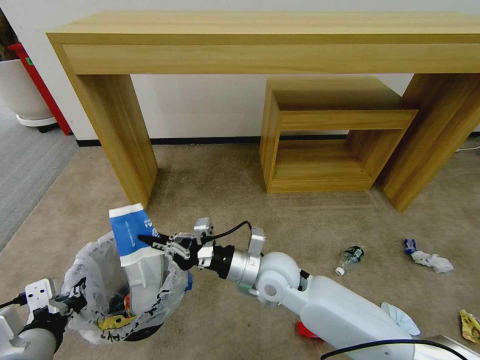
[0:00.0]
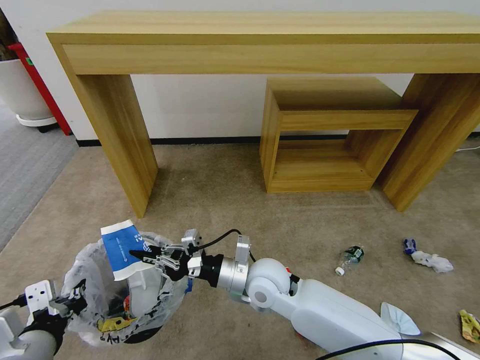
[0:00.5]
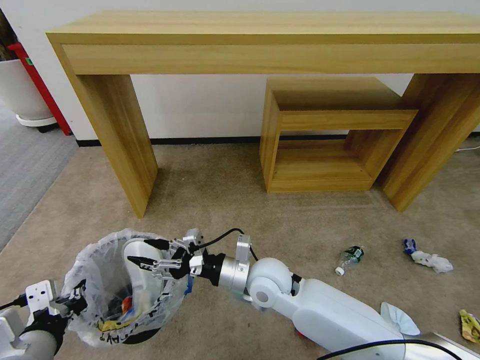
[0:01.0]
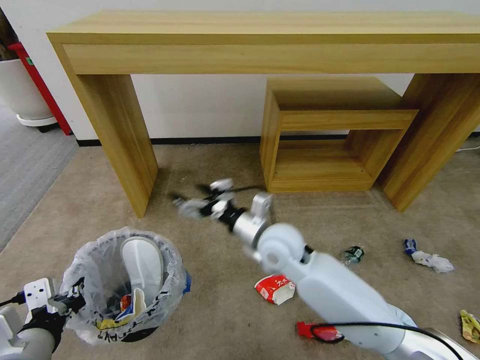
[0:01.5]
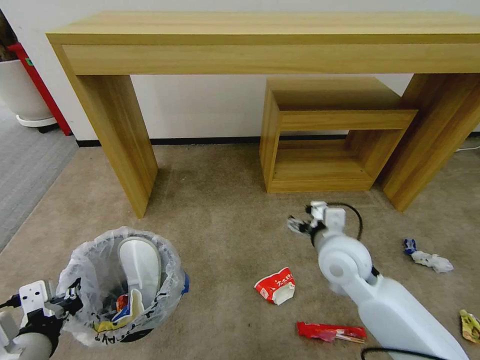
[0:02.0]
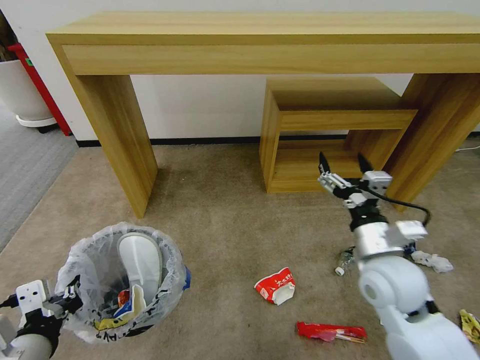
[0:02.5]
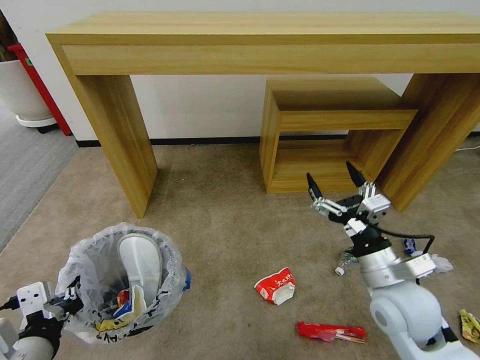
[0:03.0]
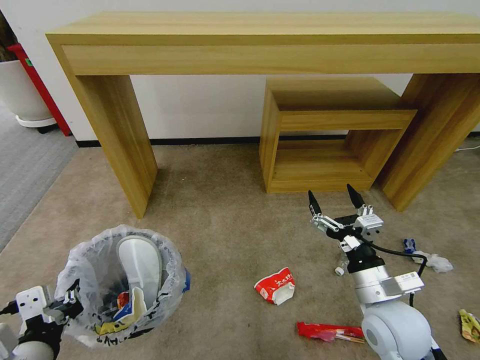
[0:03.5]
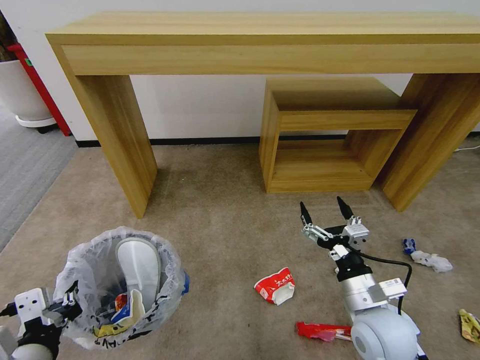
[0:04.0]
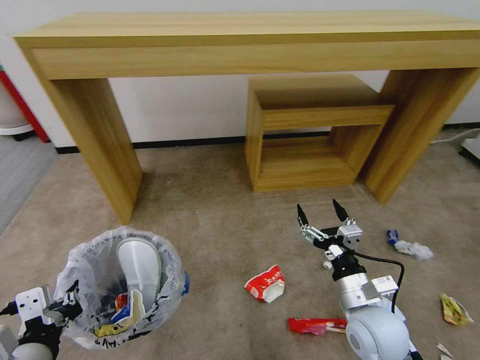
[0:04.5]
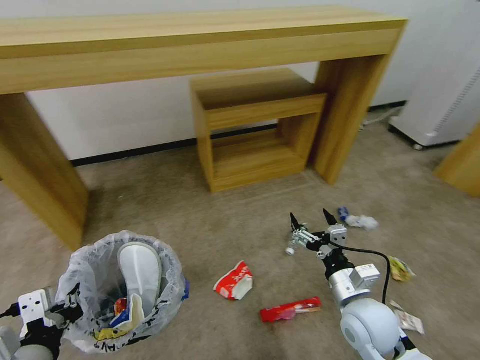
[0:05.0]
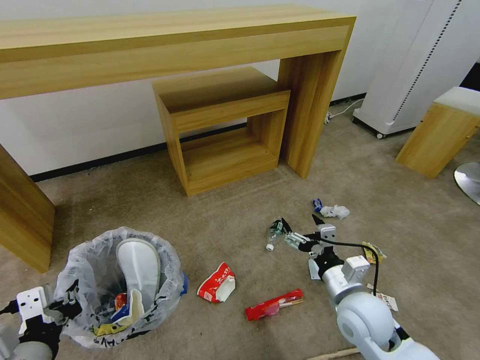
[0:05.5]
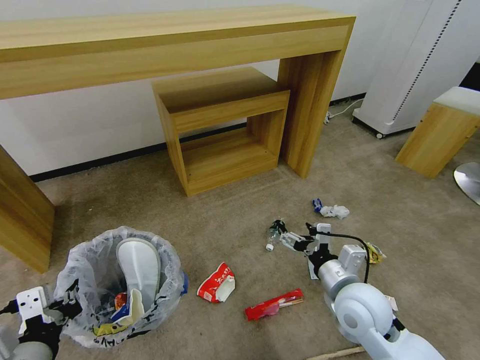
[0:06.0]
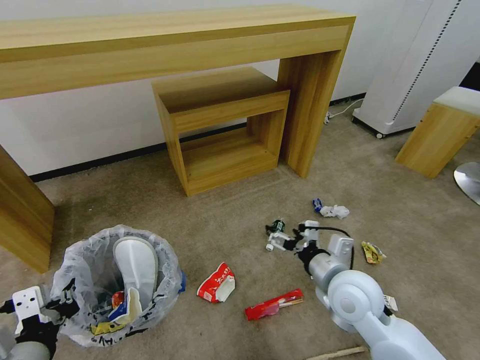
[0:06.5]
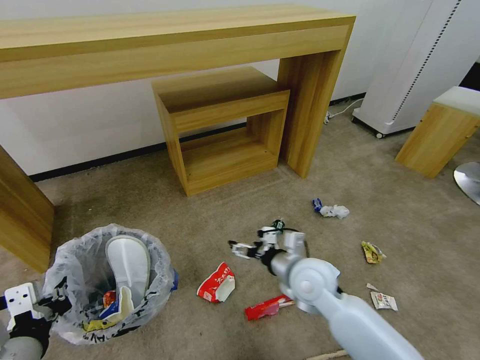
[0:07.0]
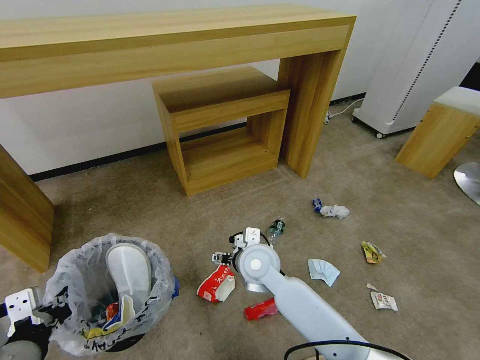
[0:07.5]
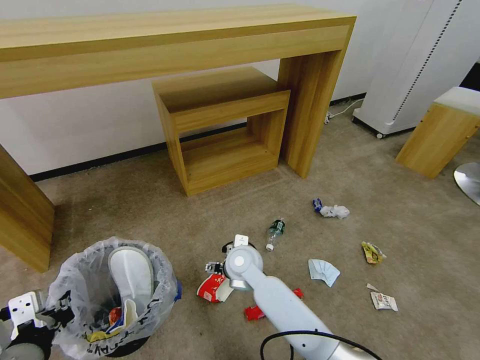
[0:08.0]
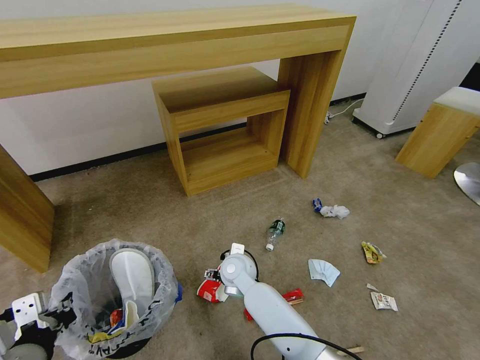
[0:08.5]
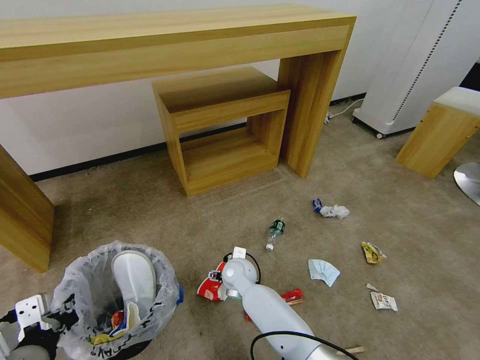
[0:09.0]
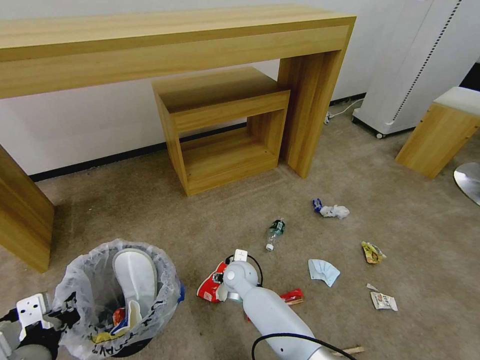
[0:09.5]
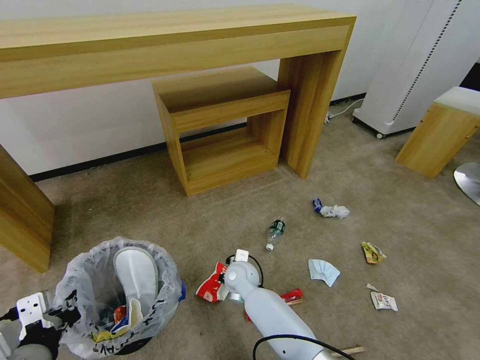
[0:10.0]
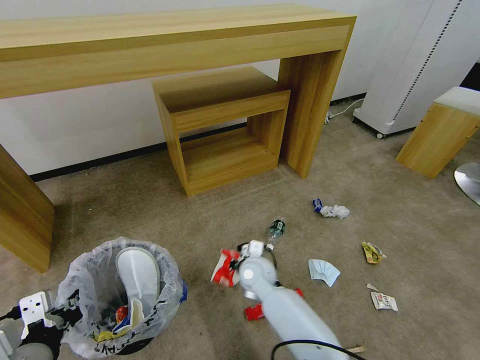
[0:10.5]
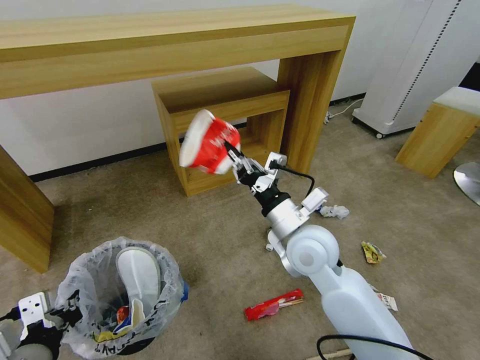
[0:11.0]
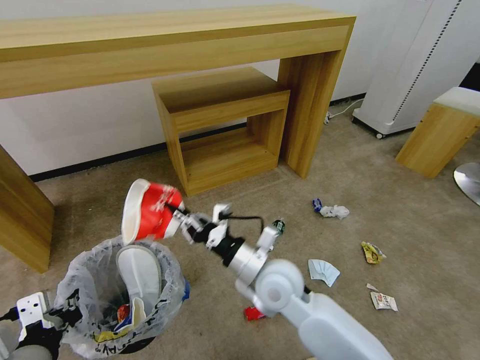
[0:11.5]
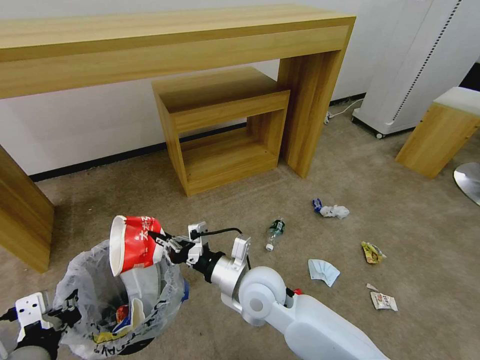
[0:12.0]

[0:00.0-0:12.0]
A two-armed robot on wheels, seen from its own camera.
Task of the whole recording: Pick up the trash bin and place the garbage on the floor into it.
0:00.0 to 0:02.0: The right gripper shifts some 15 cm to the right, and opens its fingers.
0:02.0 to 0:04.0: The right gripper is displaced backward, downward and to the right by some 15 cm.
0:04.0 to 0:06.0: The right gripper shifts by about 5 cm.
0:06.0 to 0:08.0: The right gripper goes roughly 25 cm to the left and forward.
0:08.0 to 0:10.0: The right gripper is displaced downward by some 10 cm, and closes its fingers.
0:10.0 to 0:12.0: The right gripper is displaced upward and backward by about 20 cm.

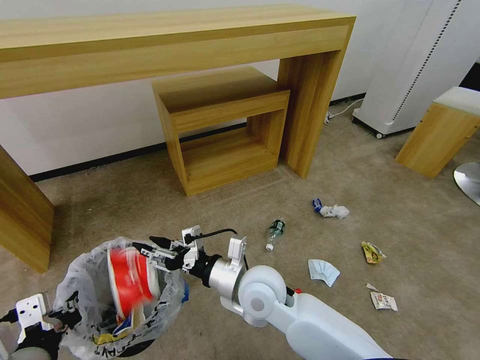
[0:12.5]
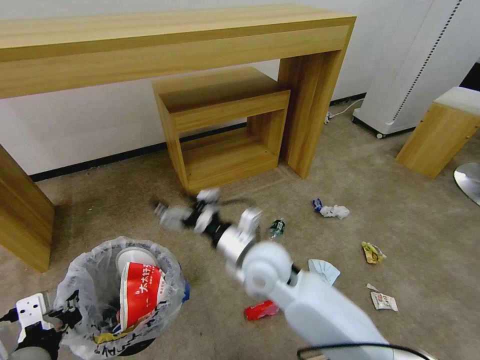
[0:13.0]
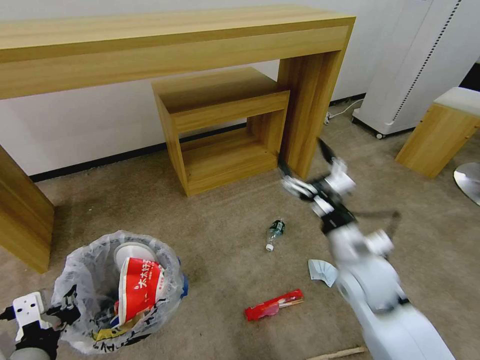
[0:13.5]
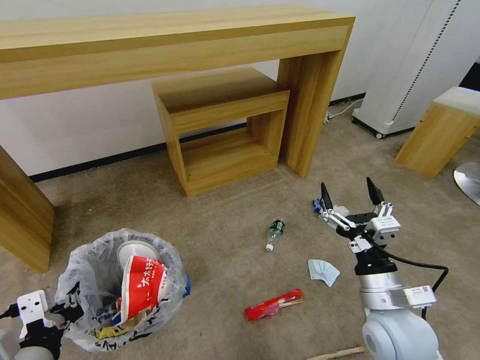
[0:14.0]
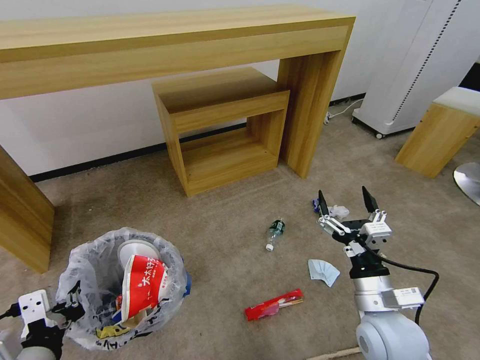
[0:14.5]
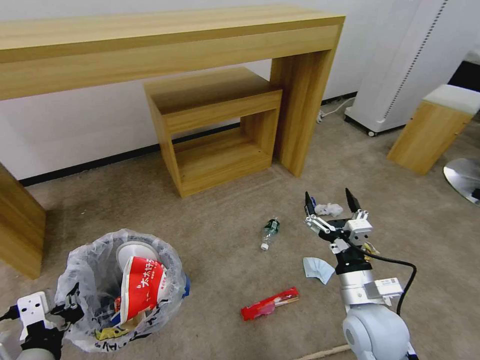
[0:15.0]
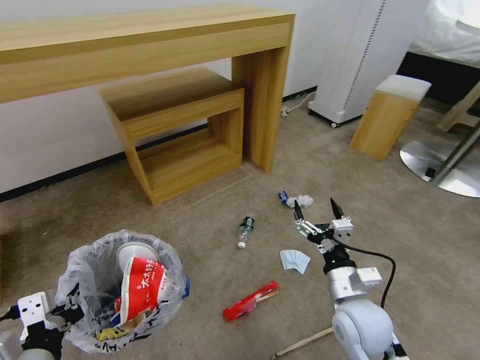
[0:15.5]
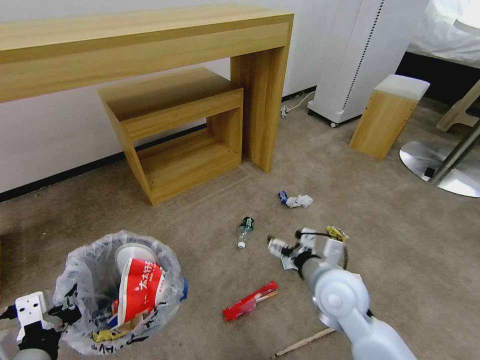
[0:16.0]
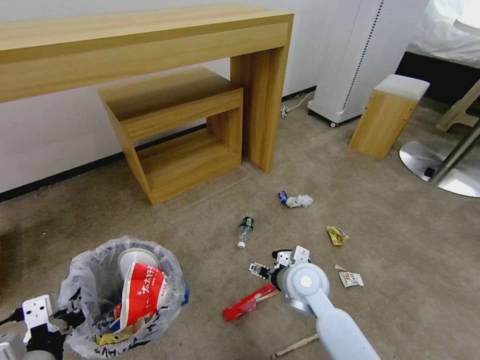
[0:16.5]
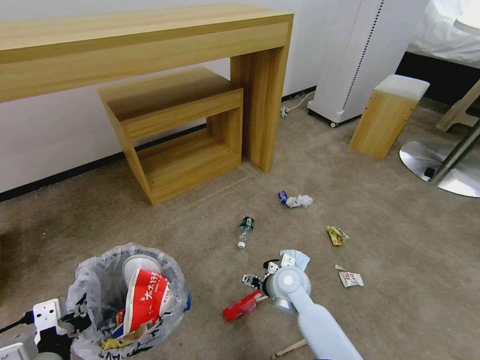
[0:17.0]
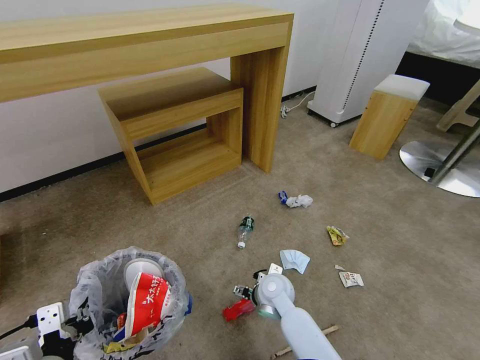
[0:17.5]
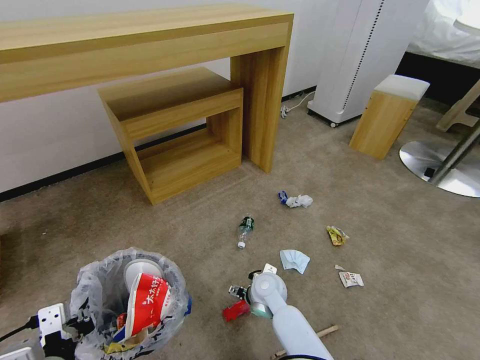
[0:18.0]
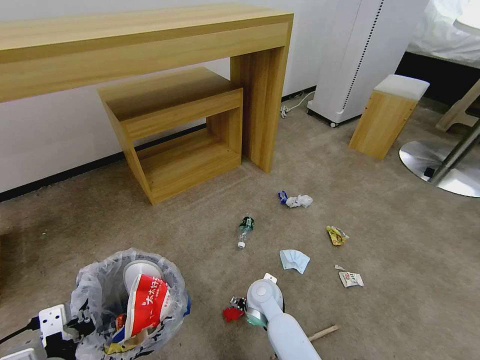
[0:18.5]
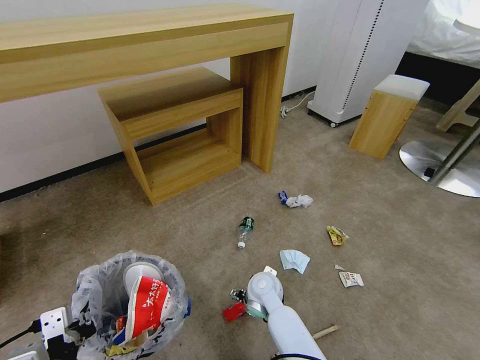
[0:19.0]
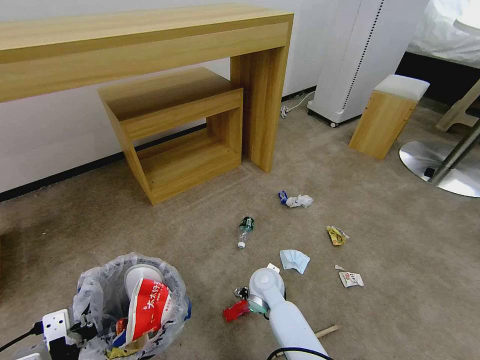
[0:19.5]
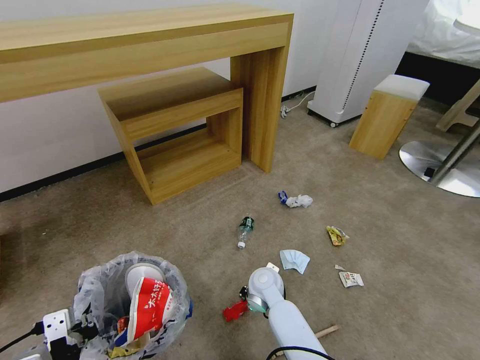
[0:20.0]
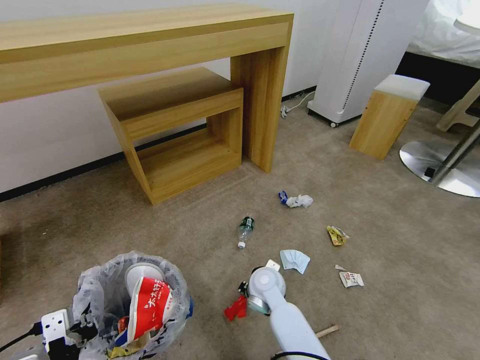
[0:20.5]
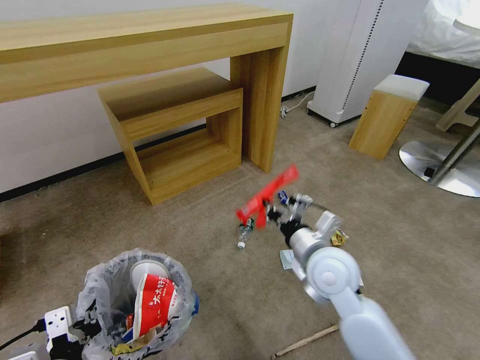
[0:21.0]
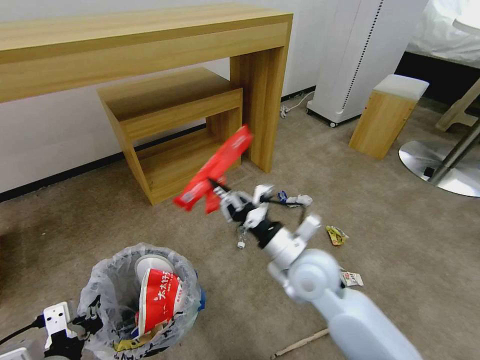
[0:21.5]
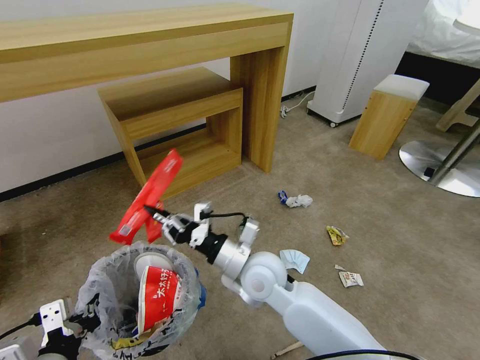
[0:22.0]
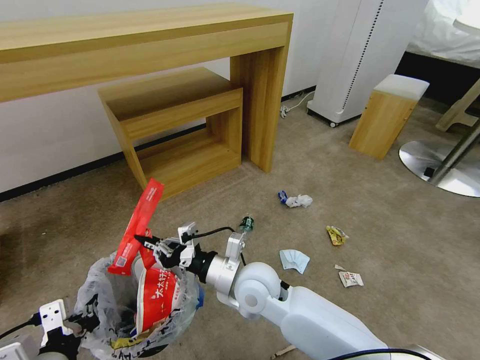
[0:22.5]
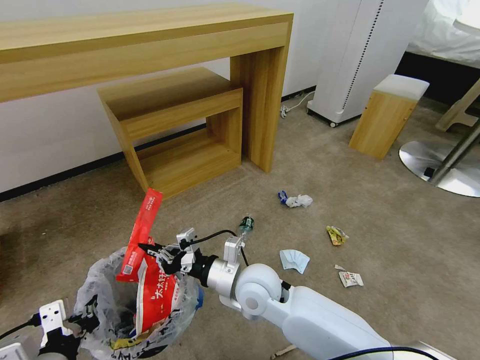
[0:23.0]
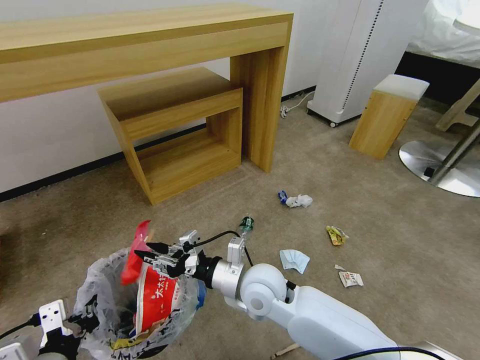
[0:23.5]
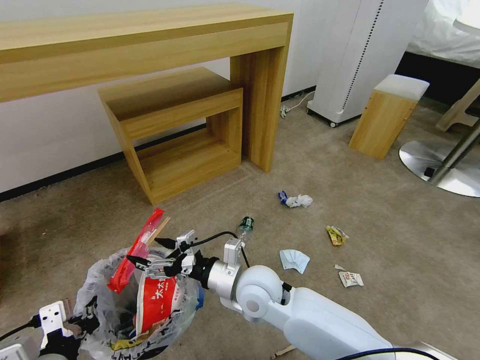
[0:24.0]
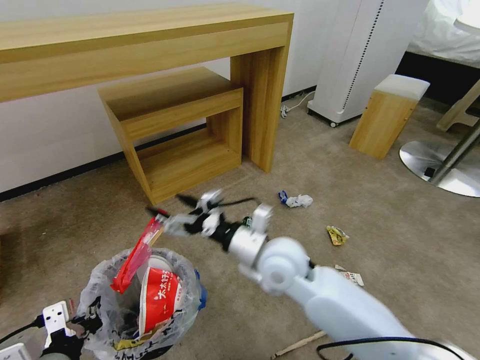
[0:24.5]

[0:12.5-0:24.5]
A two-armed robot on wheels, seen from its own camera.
Task of the whole recording: Pick up the trash bin and place the garbage on the floor into it.
0:12.5 to 0:14.5: The right gripper heads to the right, covering about 20 cm, and opens up.
0:14.5 to 0:16.5: The right gripper travels forward, to the left and downward by approximately 15 cm.
0:16.5 to 0:18.5: The right gripper travels downward and to the left by about 15 cm.
0:18.5 to 0:20.5: The right gripper closes.
0:20.5 to 0:22.5: The right gripper moves upward, approximately 10 cm.
0:22.5 to 0:24.5: The right gripper is displaced upward by approximately 5 cm, and opens up.

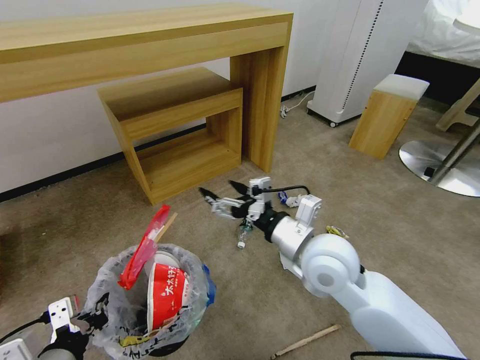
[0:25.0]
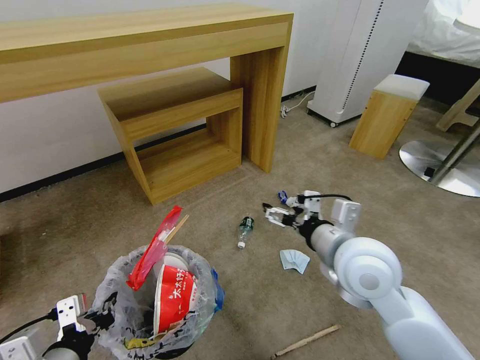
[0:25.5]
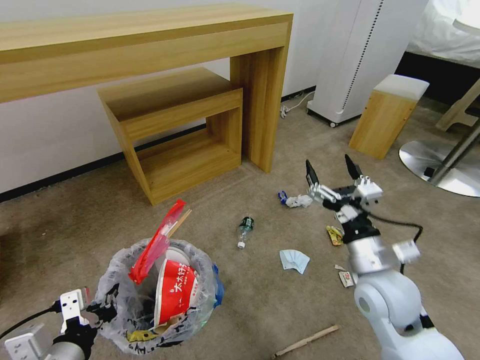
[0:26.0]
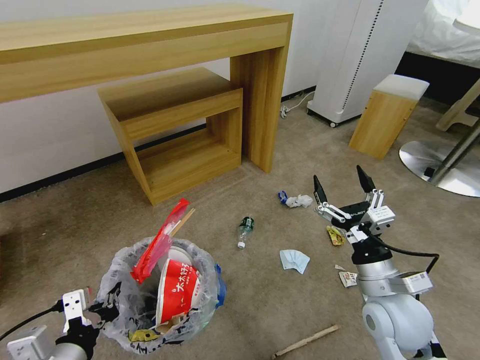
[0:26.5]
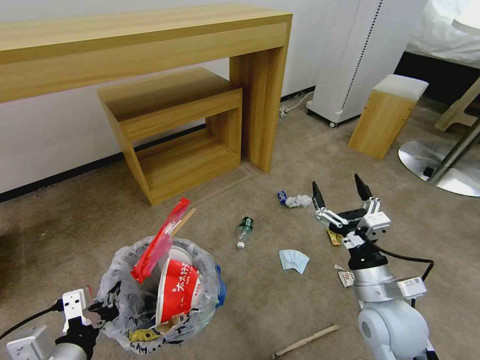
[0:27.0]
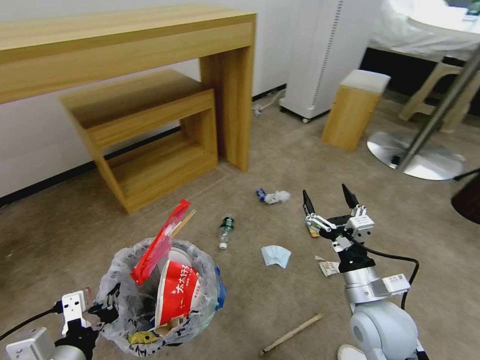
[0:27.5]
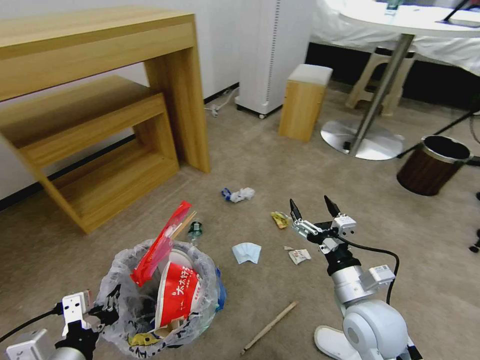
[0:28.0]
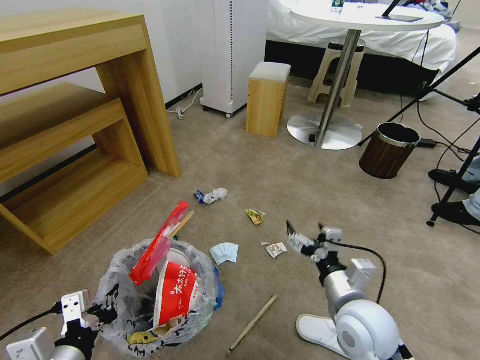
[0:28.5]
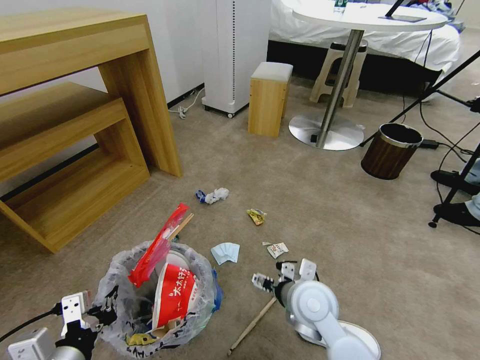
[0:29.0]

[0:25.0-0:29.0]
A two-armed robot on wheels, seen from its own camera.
Task of the whole recording: Pick up the trash bin and place the garbage on the floor into it.
0:25.0 to 0:27.0: The right gripper travels to the right, downward and backward by about 15 cm.
0:27.0 to 0:29.0: The right gripper travels to the left by some 10 cm.
